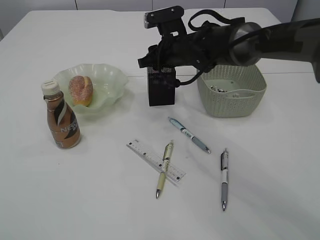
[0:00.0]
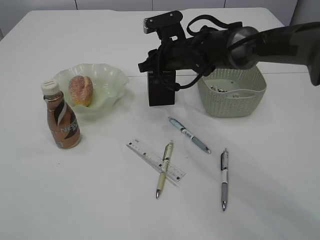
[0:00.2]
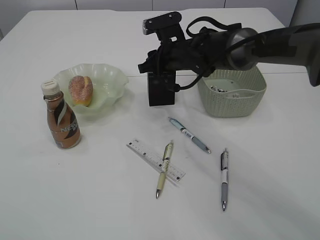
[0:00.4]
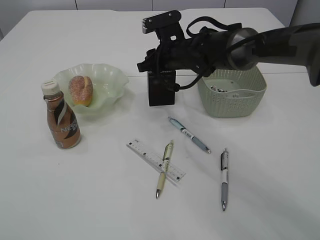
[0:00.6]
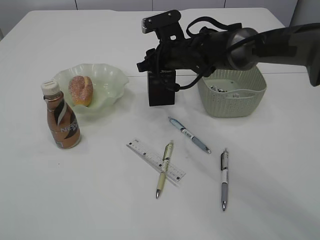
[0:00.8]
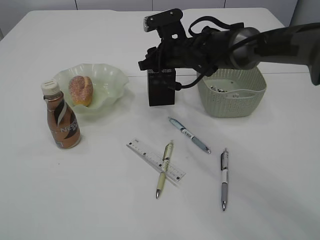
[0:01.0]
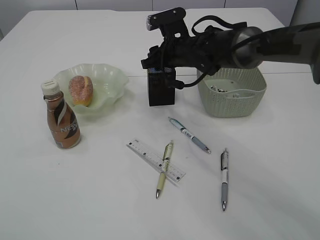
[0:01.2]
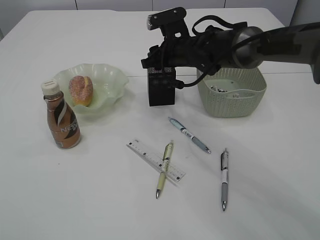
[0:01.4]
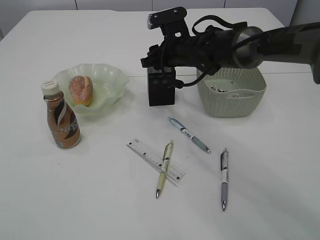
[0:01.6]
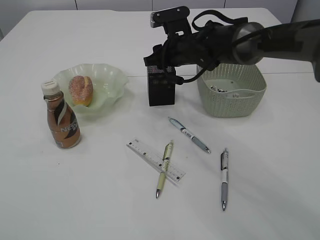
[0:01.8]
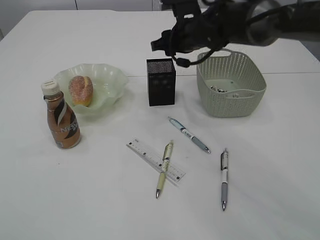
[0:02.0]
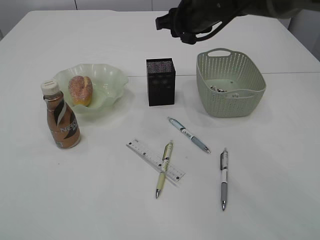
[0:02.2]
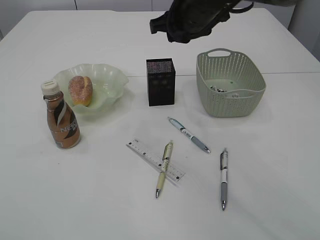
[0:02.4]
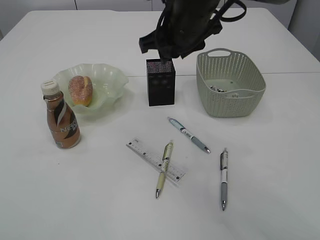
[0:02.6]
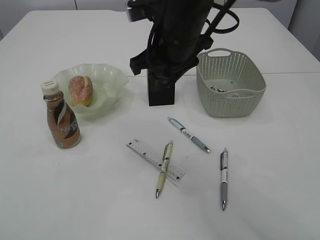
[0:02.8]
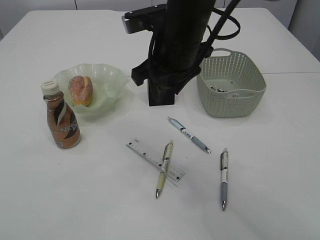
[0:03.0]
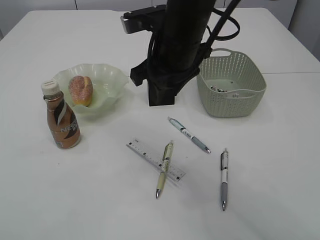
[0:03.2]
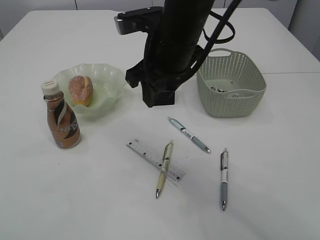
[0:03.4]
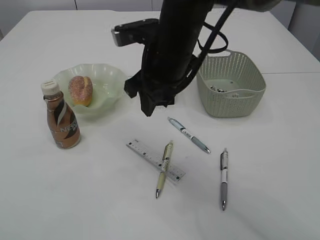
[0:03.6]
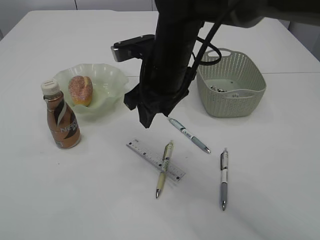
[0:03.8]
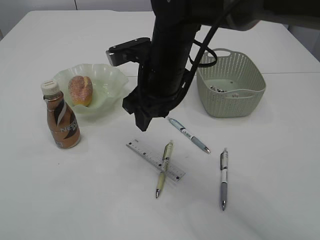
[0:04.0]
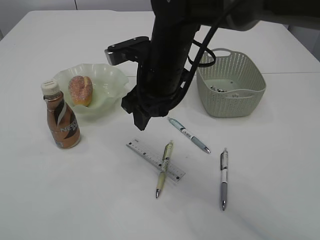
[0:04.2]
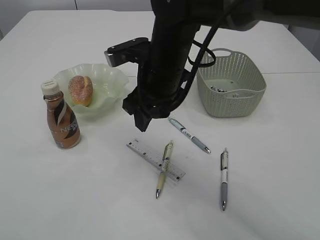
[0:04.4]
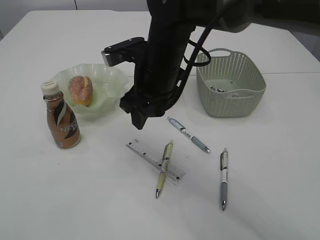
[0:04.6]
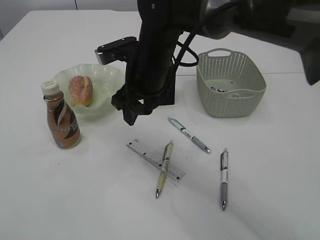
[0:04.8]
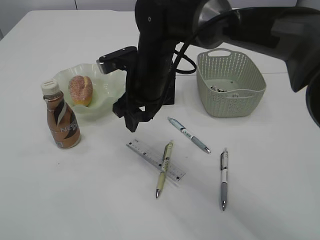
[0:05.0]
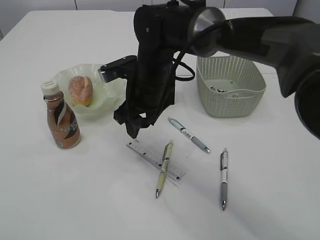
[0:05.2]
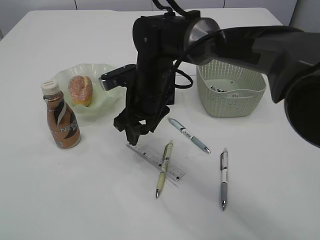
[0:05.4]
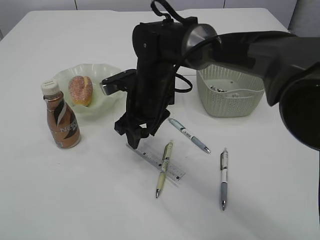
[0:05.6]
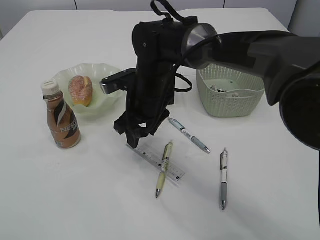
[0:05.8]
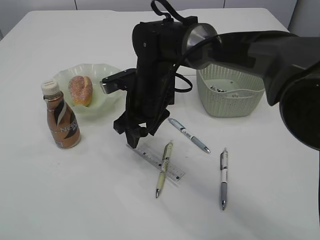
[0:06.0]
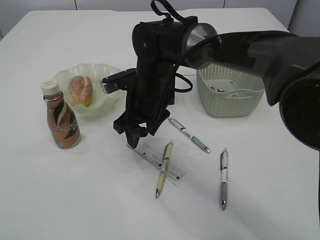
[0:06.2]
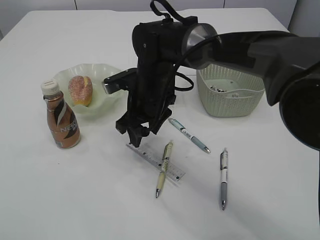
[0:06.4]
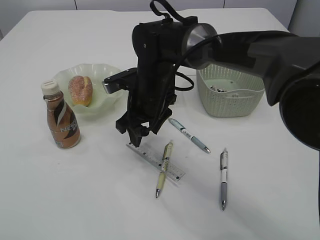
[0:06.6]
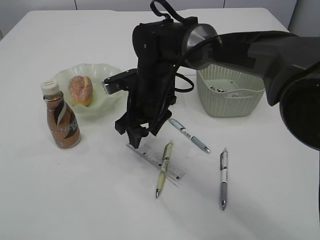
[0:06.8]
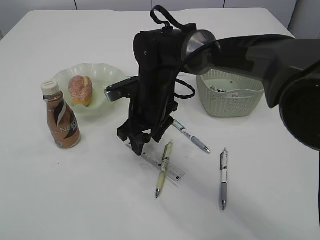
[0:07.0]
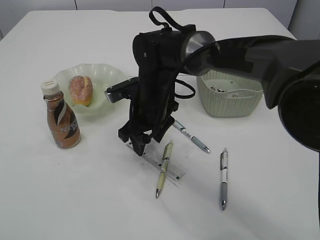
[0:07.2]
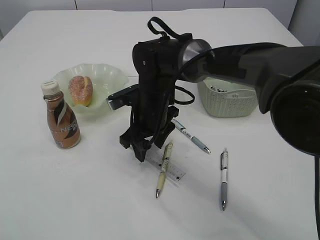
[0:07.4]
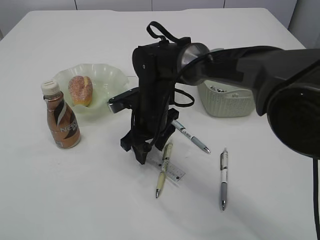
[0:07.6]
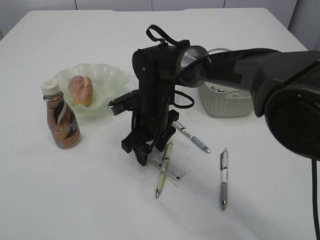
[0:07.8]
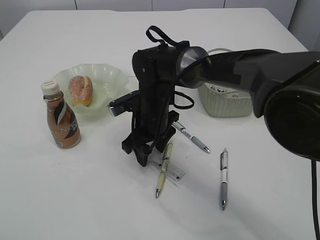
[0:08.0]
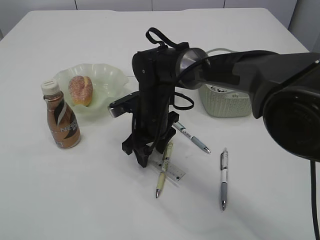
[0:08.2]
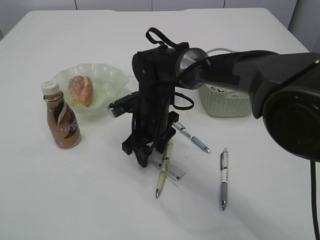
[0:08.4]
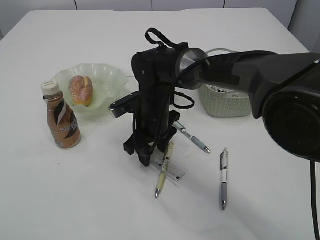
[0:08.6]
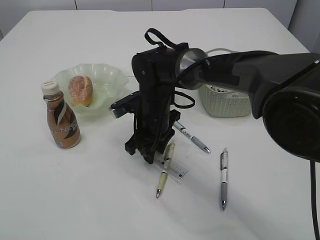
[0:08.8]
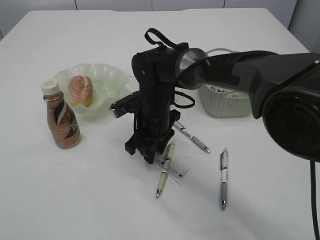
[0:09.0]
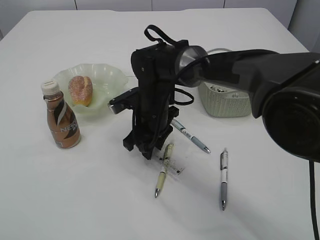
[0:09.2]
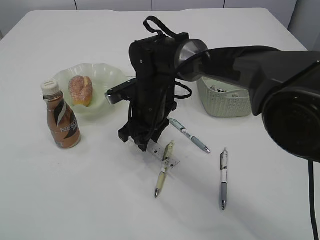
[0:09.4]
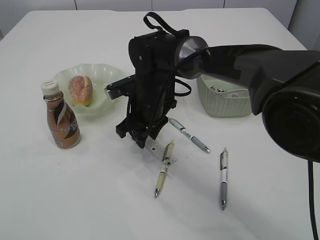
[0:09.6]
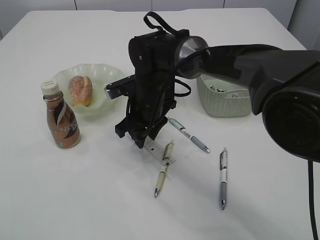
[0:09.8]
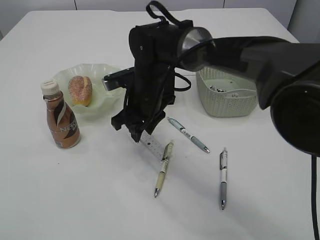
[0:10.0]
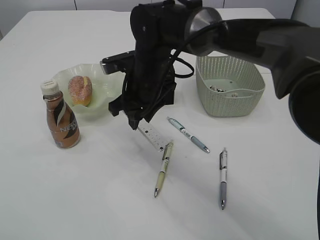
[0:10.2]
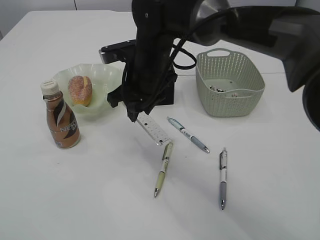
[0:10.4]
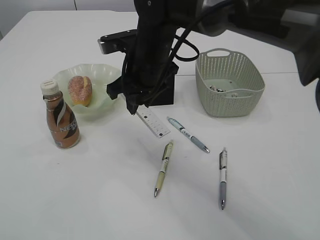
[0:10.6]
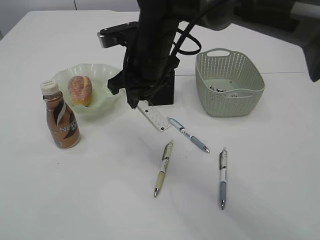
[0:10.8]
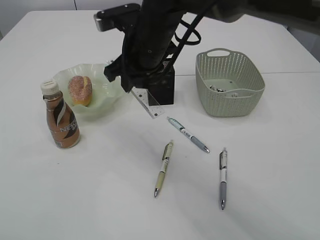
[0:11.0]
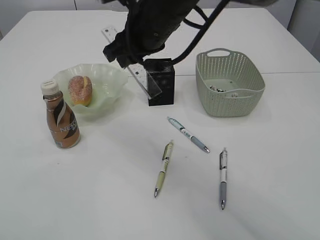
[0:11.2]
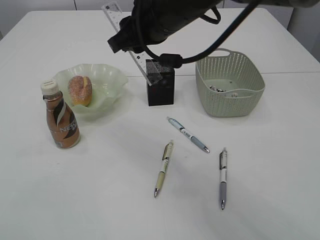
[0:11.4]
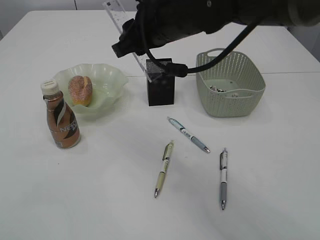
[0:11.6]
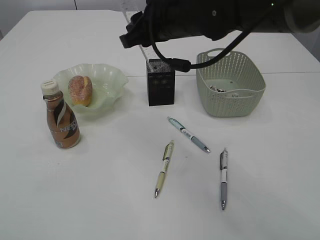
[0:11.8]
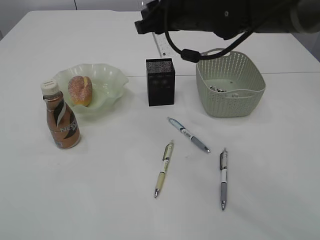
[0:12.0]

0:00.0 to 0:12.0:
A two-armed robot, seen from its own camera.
Step, 0:00.0 to 0:02.2: Place the blue pencil sharpener into the pen holder.
Step, 0:02.4 to 0:10.0: pick up the ruler.
0:00.0 to 0:01.6: Both grippers stay about where they are.
0:01.6 to 0:03.0: The right gripper is displaced backward and upward by about 15 cm.
0:03.0 to 0:04.4: There are only small adjustments of the grippers.
0:04.4 to 0:06.0: The right gripper moves downward, some 5 cm.
0:06.0 to 0:07.6: There are only small adjustments of the grippers.
0:07.6 to 0:09.0: The right gripper closes its fingers.
0:09.0 to 0:10.4: The right gripper shifts some 10 cm upward.
0:10.4 to 0:12.0: The right gripper is displaced upward and to the right by approximately 10 cm.

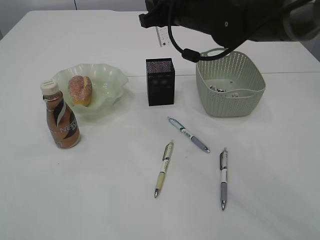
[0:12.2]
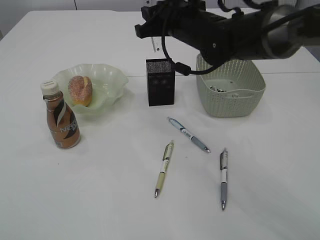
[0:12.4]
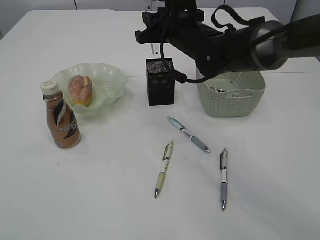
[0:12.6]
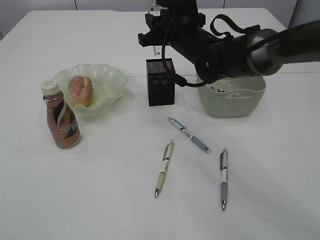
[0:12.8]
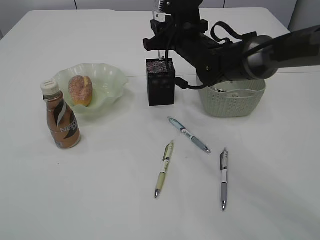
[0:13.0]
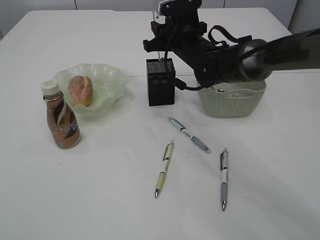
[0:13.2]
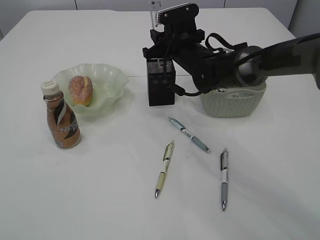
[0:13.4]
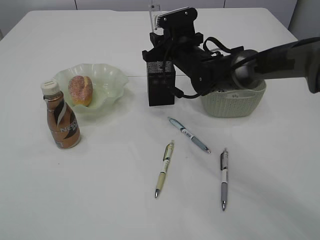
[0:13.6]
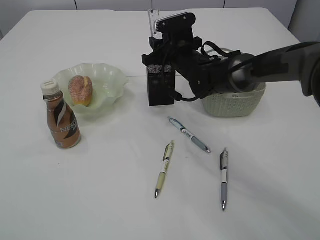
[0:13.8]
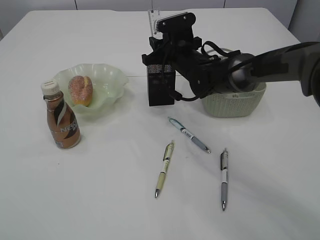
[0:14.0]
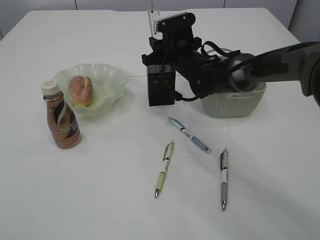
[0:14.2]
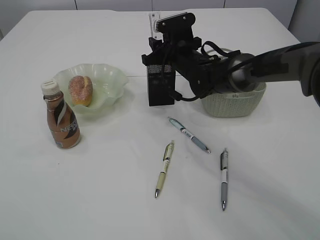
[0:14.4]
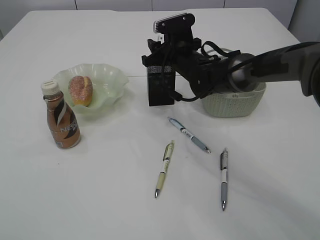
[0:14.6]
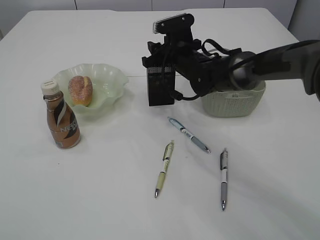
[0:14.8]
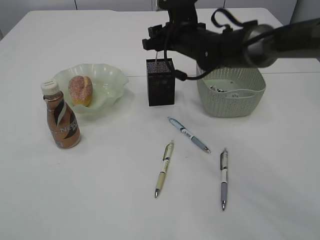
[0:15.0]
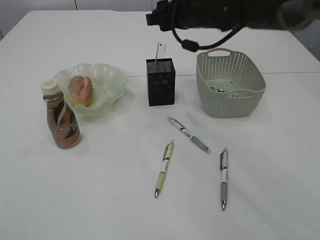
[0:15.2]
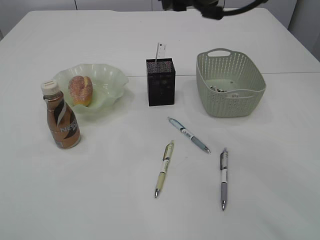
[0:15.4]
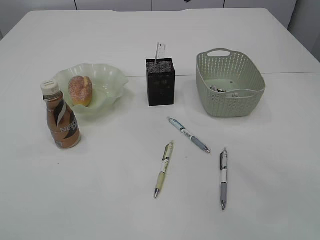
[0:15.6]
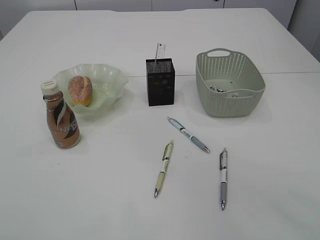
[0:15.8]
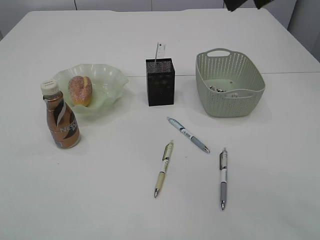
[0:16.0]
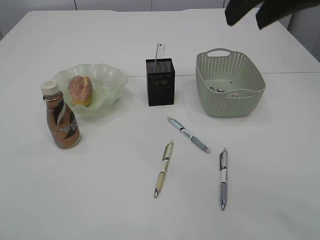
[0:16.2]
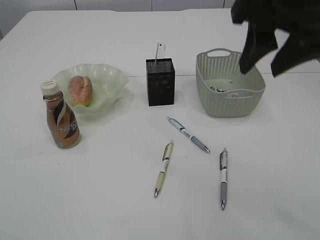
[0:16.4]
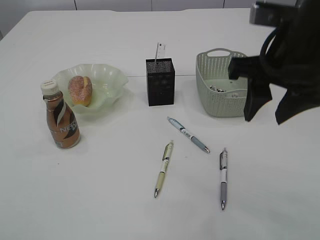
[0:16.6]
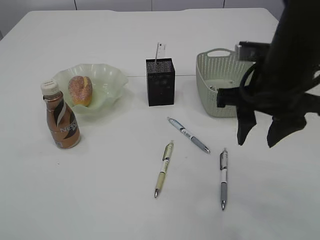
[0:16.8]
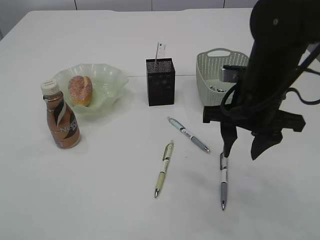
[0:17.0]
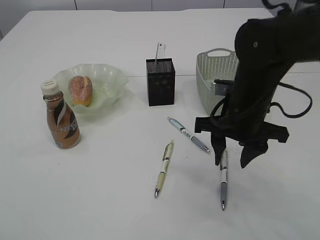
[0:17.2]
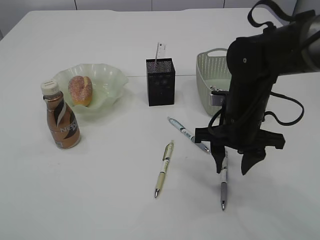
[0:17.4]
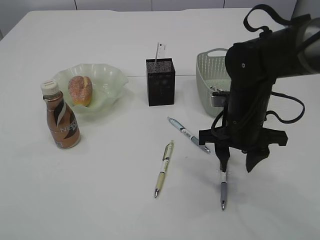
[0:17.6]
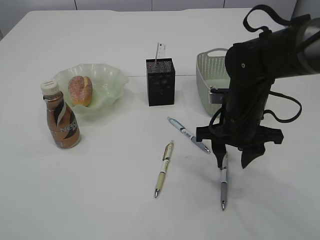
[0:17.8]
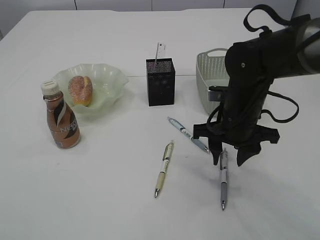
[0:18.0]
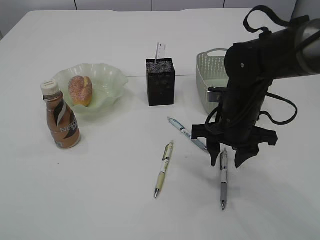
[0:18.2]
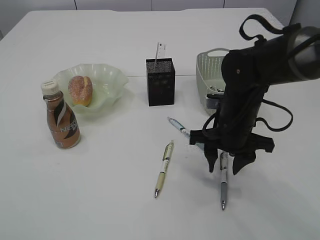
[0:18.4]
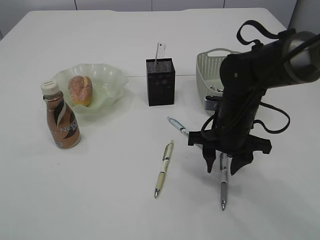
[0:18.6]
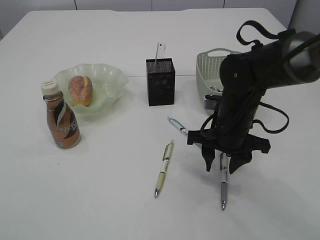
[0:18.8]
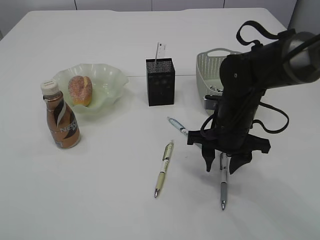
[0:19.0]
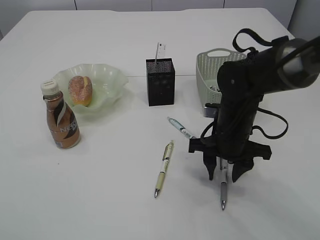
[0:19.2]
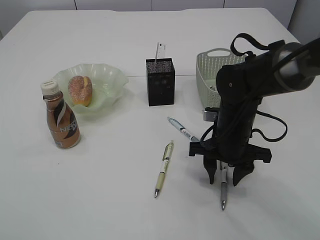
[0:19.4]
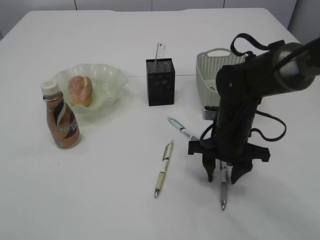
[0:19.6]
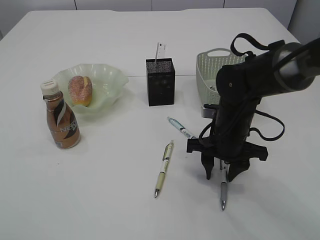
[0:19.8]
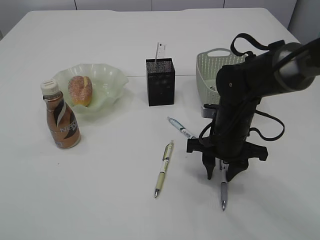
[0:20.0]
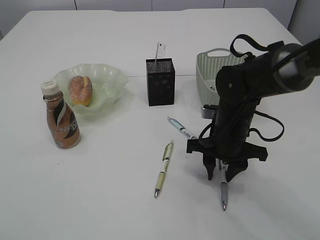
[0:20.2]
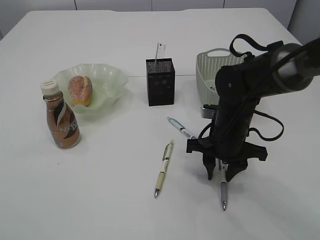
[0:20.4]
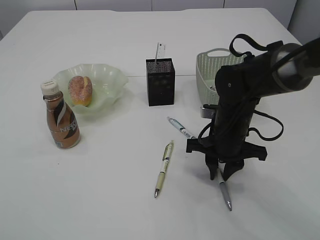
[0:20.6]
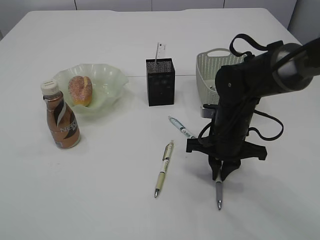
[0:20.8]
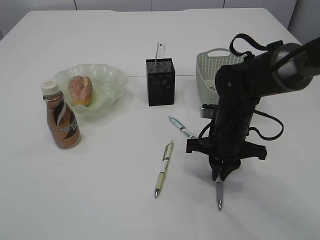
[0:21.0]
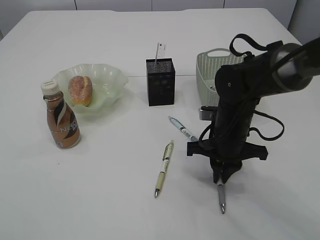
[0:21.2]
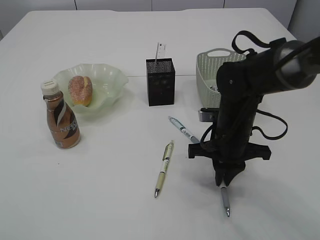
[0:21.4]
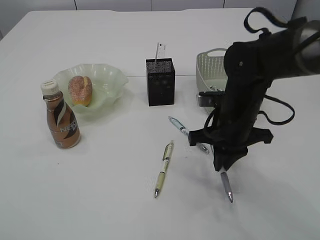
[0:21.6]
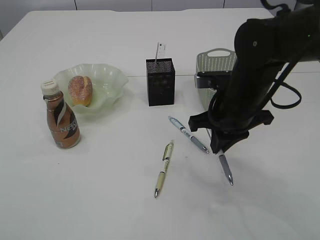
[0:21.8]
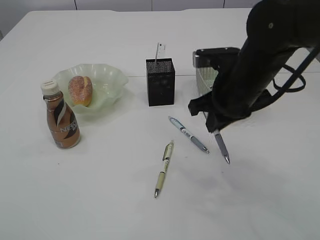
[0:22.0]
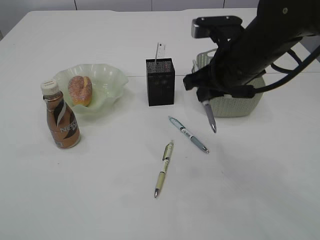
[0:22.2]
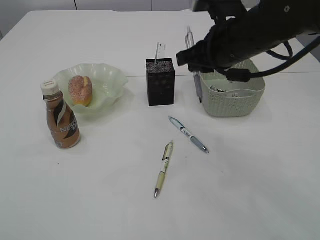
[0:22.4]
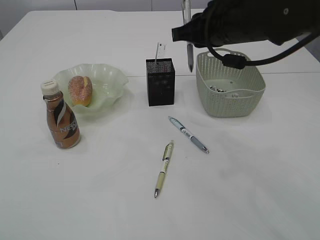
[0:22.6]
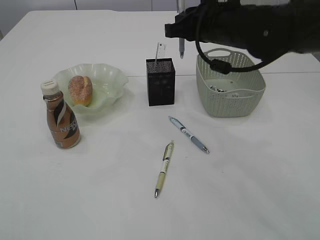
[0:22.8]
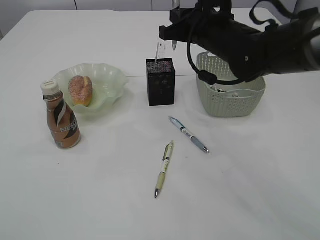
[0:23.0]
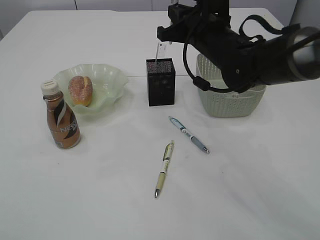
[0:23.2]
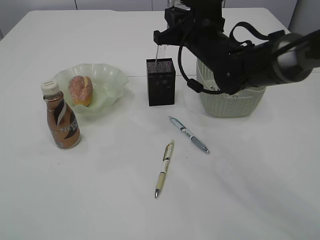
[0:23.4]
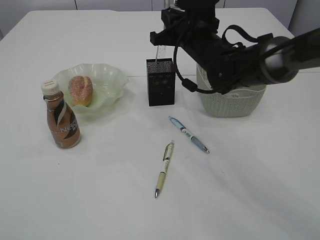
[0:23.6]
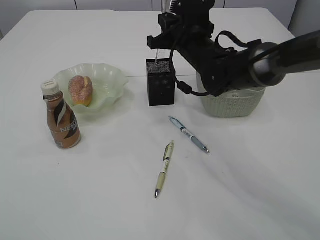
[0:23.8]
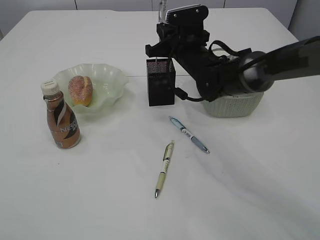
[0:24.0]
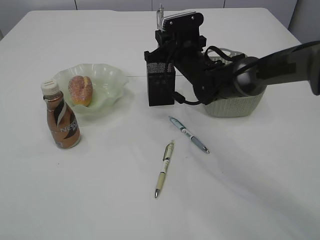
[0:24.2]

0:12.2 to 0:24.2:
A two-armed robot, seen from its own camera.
Step, 0:12.2 to 0:15.0: Place the ruler into the pen holder.
Step, 0:15.2 to 0:21.6: Pick up the pen with right arm.
0:12.2 to 0:13.8: The right gripper heads downward and forward, covering some 15 cm.
0:13.8 to 0:15.2: The right gripper goes some 10 cm upward.
0:15.2 to 0:16.6: The right gripper shifts approximately 20 cm backward and to the right.
0:16.6 to 0:18.2: The right gripper is displaced downward and forward by approximately 20 cm.
0:18.2 to 0:19.8: The grippers move only a little.
0:19.8 to 0:21.2: The right gripper closes up.
0:21.2 to 0:22.6: The right gripper heads upward, covering some 15 cm.
0:22.6 to 0:24.2: The right gripper travels downward and forward by some 15 cm.
